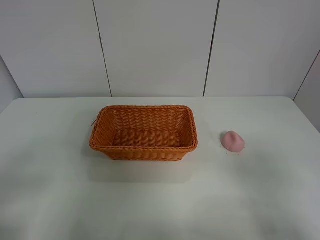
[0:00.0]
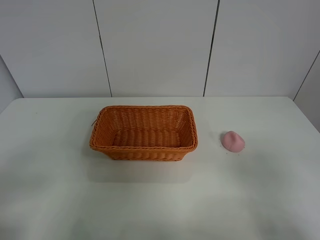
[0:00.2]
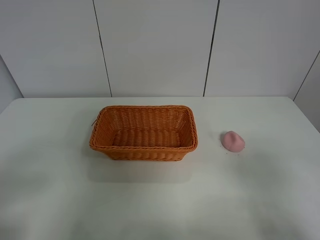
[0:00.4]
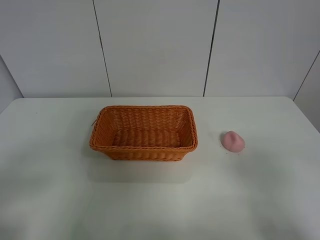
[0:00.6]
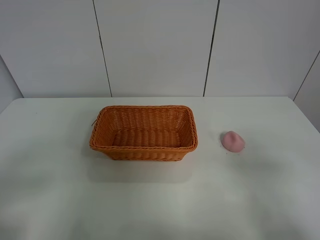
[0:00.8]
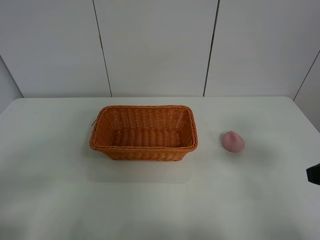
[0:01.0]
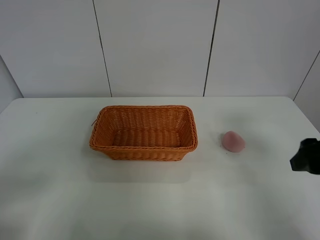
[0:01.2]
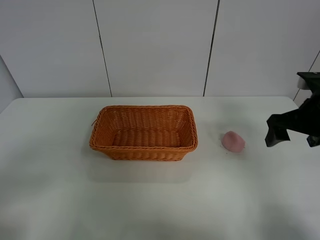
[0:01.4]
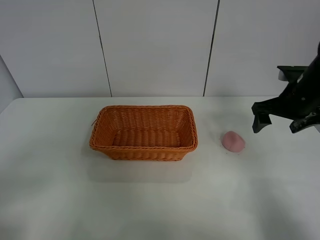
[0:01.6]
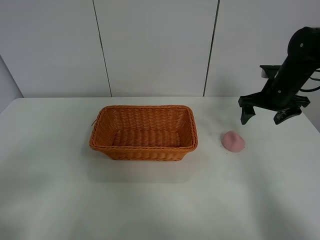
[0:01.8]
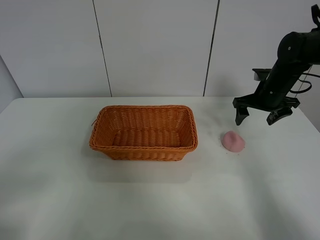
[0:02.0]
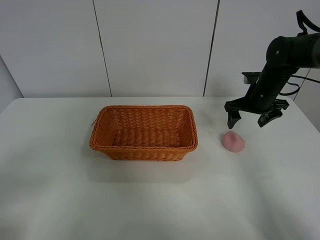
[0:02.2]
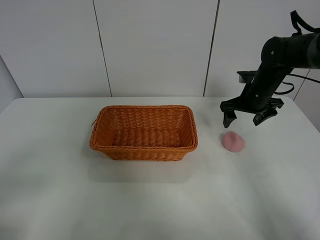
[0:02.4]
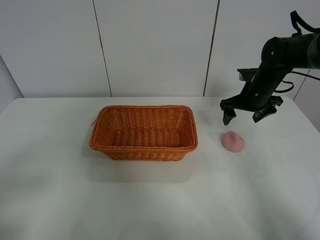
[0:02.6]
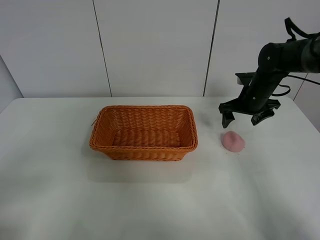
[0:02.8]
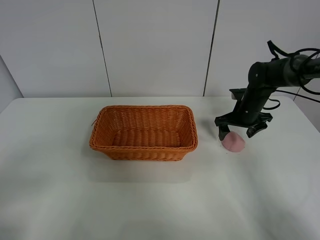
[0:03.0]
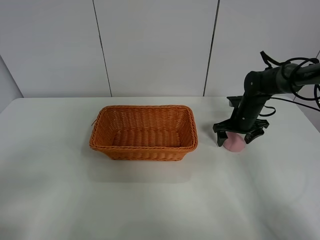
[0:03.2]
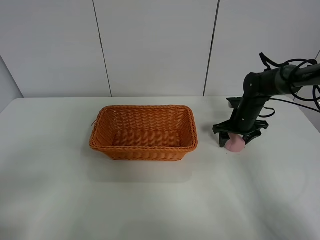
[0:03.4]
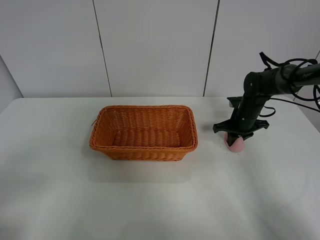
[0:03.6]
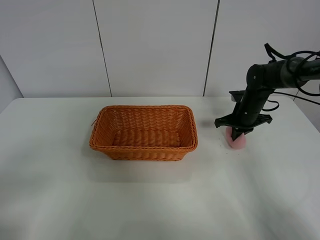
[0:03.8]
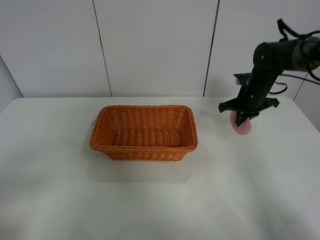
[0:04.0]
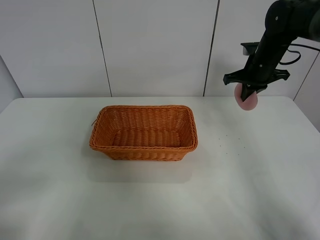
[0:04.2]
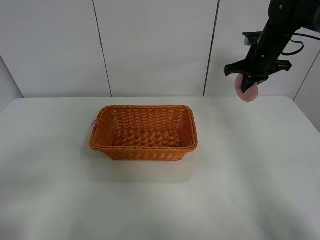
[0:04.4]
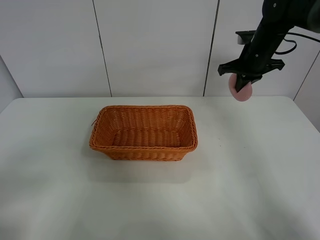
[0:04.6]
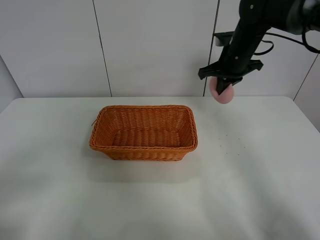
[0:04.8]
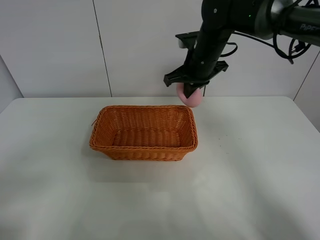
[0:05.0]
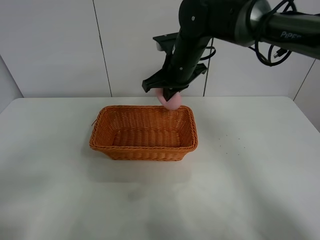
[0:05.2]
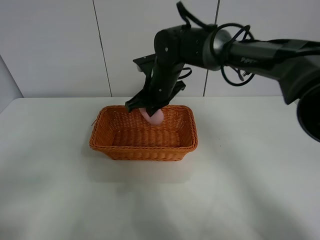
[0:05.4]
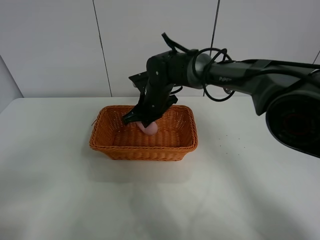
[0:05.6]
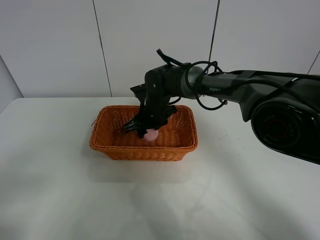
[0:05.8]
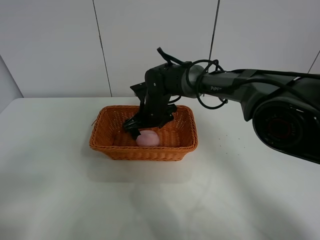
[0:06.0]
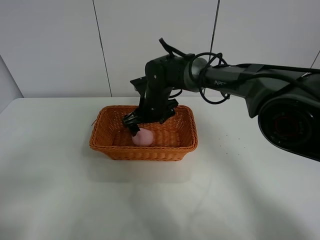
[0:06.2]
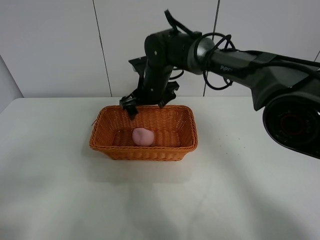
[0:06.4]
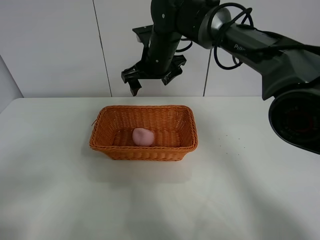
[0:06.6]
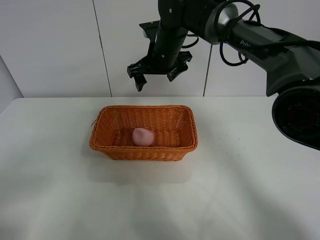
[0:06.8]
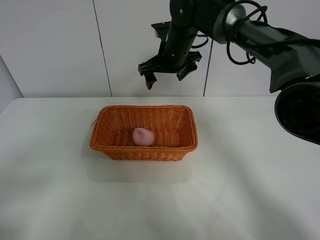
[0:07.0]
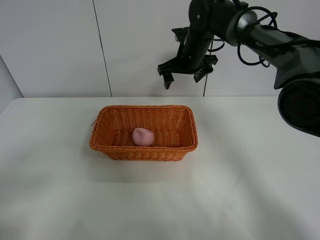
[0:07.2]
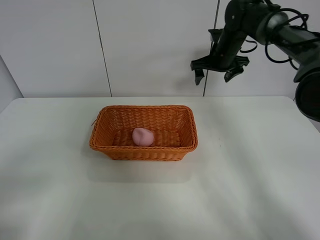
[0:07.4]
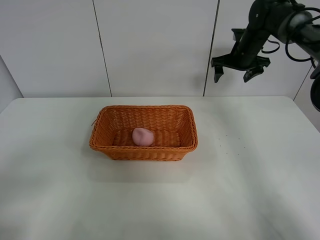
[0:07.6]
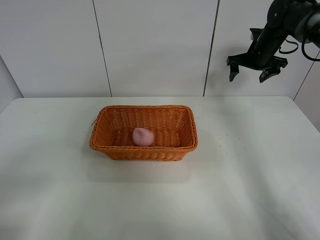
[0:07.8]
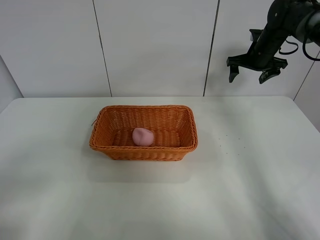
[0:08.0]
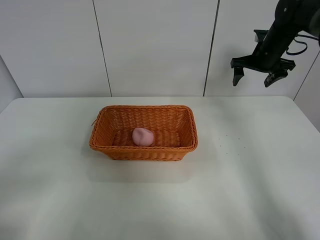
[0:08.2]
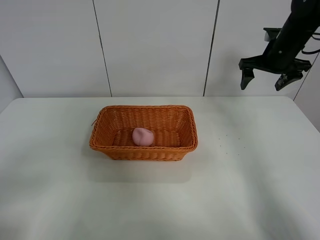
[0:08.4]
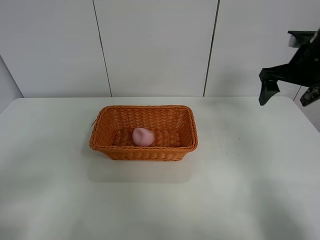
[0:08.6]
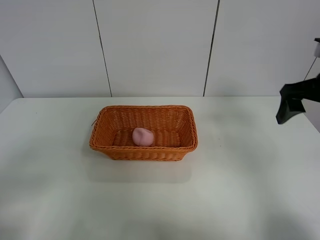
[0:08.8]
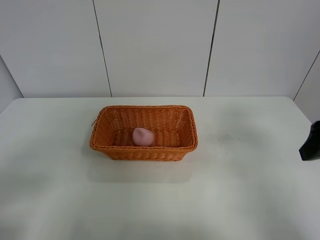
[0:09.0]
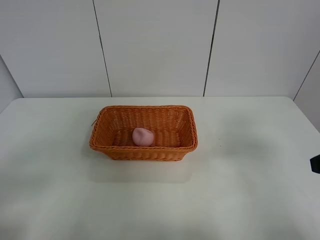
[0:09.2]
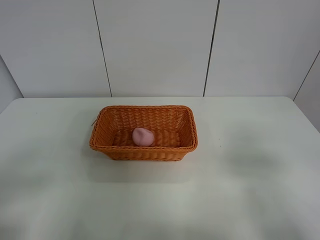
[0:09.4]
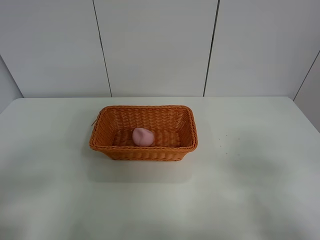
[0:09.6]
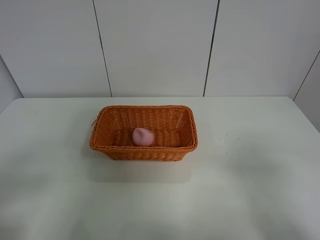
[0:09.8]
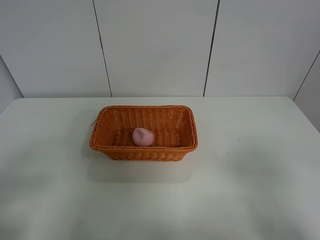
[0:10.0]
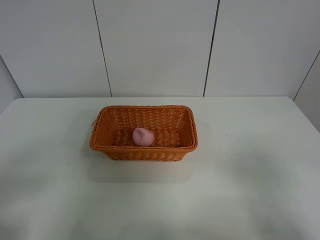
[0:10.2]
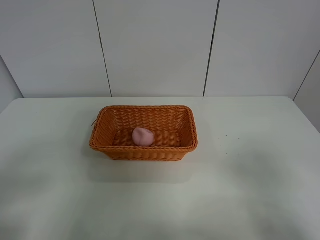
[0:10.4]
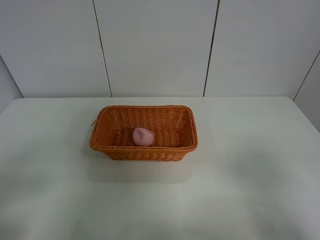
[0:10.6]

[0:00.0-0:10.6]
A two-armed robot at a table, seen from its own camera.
Step, 0:00.0 to 0:03.6: Grasp the peach with right gripper.
Step, 0:03.8 to 0:06.6: Place the peach in the basket with right gripper.
0:00.0 to 0:01.6: The right gripper goes about 35 cm forward.
0:01.6 to 0:03.0: The right gripper goes about 15 cm downward and forward.
0:03.0 to 0:04.6: The right gripper heads upward, covering roughly 15 cm, and closes its fingers.
0:04.6 to 0:06.0: The right gripper travels to the left and downward by about 25 cm, and opens up.
0:06.0 to 0:07.6: The right gripper travels to the right, forward and upward by some 30 cm.
0:07.6 to 0:09.0: The right gripper heads backward, covering approximately 35 cm.
0:09.0 to 0:10.6: The right gripper goes some 15 cm backward.

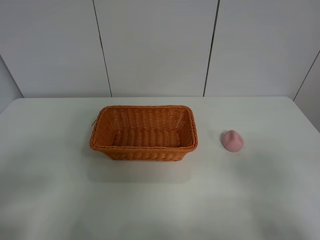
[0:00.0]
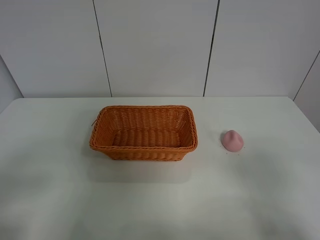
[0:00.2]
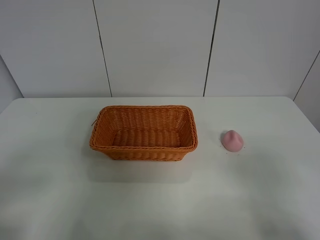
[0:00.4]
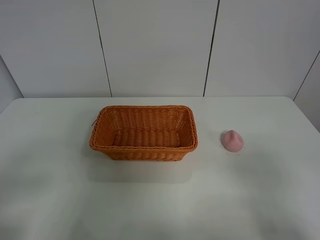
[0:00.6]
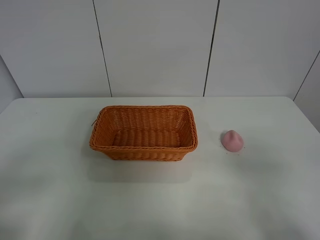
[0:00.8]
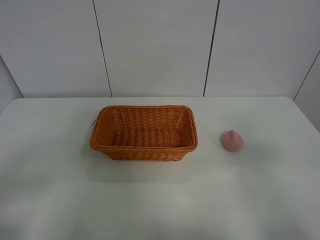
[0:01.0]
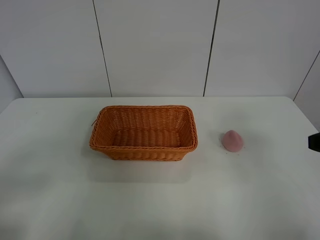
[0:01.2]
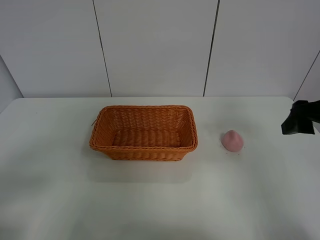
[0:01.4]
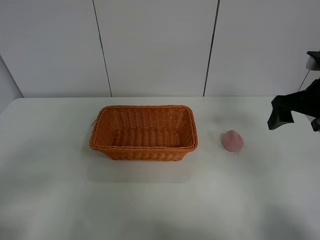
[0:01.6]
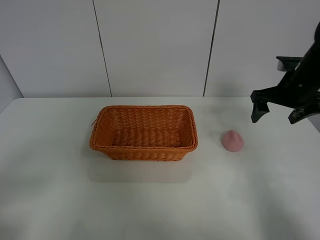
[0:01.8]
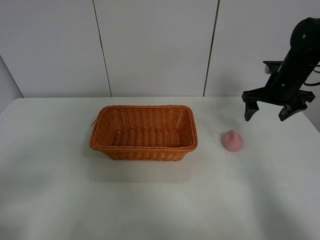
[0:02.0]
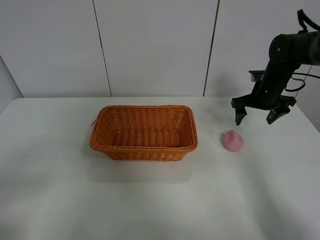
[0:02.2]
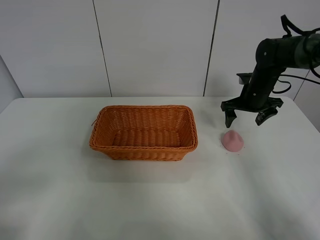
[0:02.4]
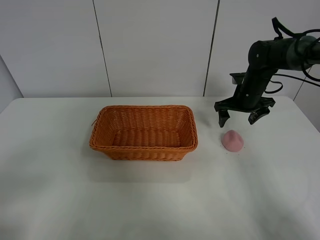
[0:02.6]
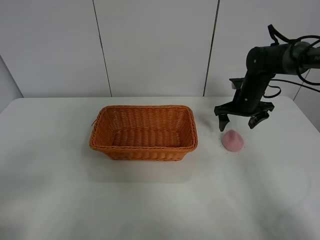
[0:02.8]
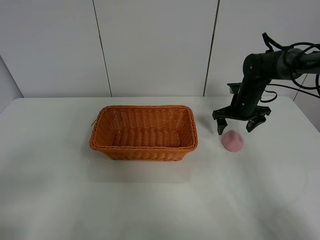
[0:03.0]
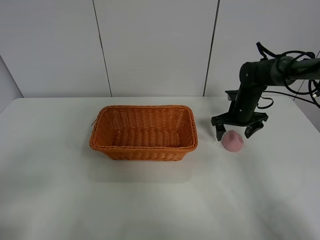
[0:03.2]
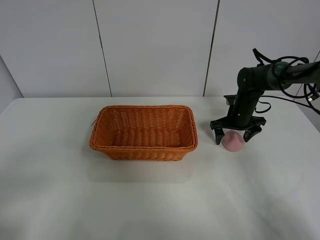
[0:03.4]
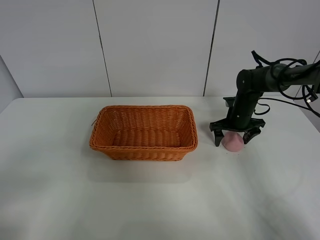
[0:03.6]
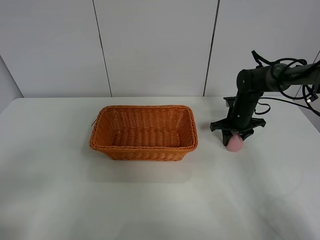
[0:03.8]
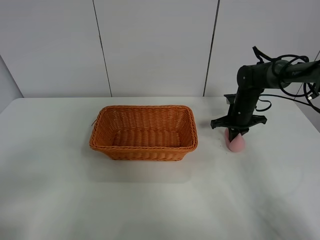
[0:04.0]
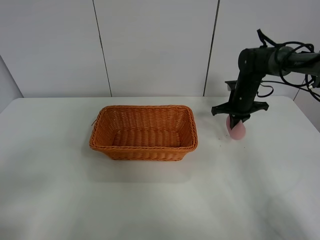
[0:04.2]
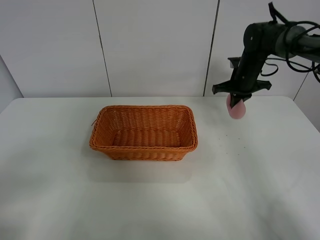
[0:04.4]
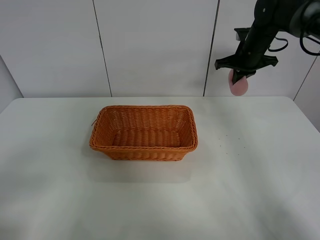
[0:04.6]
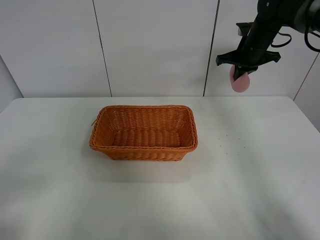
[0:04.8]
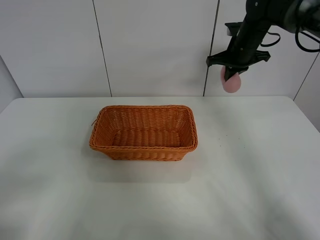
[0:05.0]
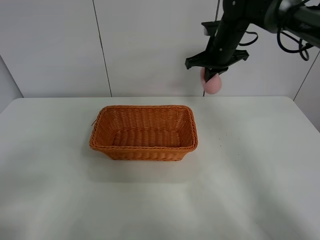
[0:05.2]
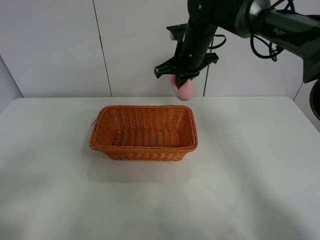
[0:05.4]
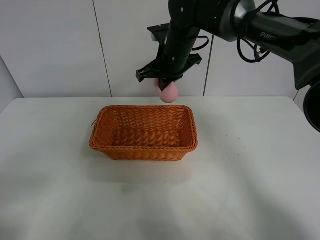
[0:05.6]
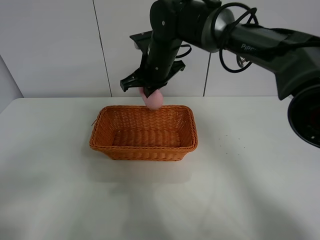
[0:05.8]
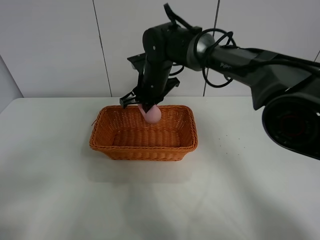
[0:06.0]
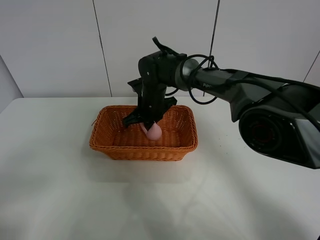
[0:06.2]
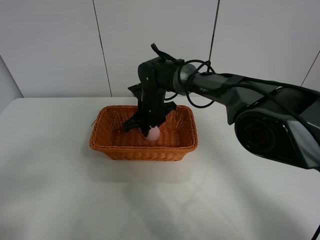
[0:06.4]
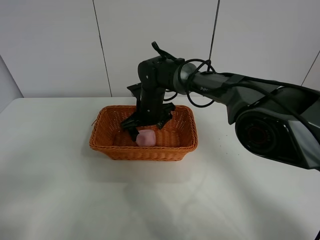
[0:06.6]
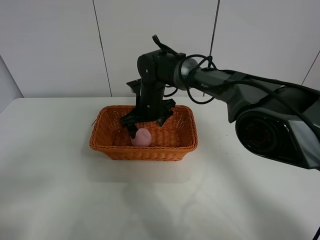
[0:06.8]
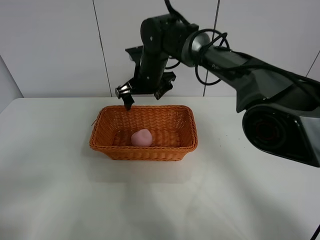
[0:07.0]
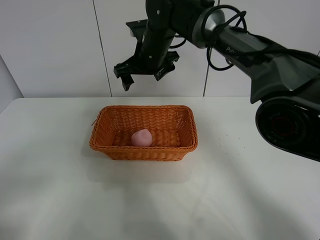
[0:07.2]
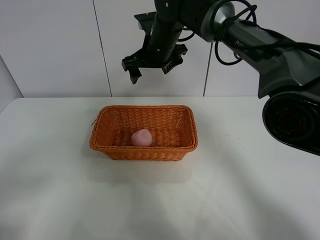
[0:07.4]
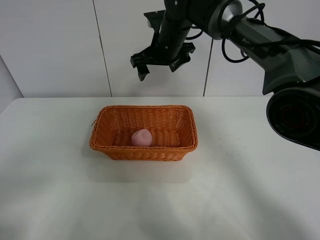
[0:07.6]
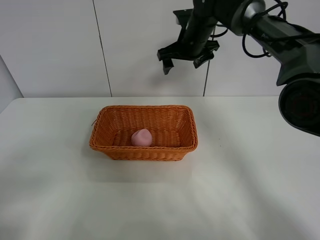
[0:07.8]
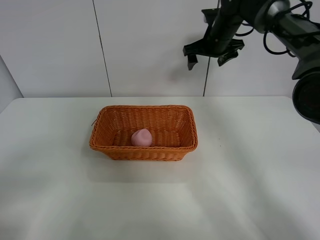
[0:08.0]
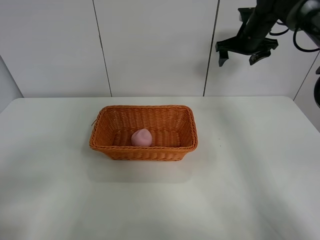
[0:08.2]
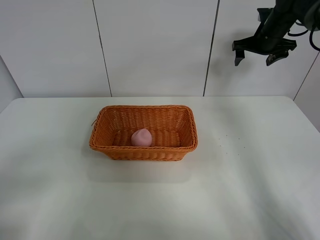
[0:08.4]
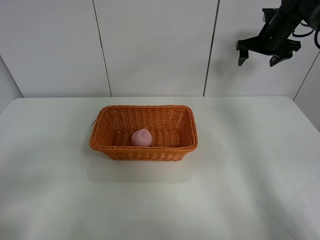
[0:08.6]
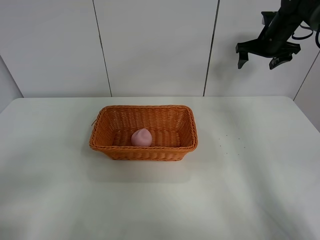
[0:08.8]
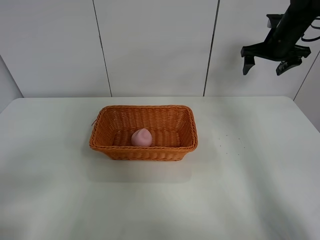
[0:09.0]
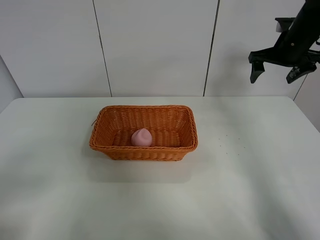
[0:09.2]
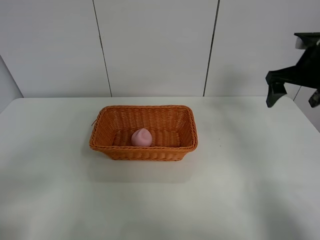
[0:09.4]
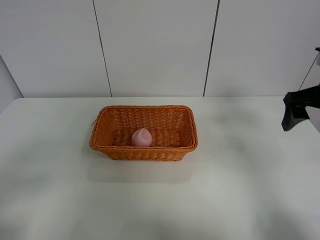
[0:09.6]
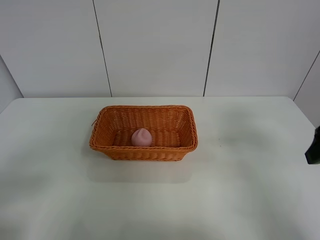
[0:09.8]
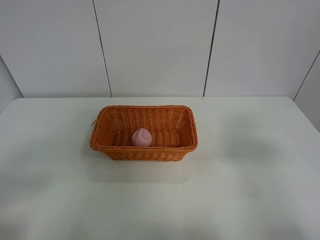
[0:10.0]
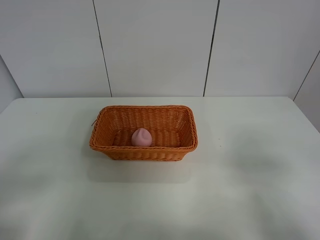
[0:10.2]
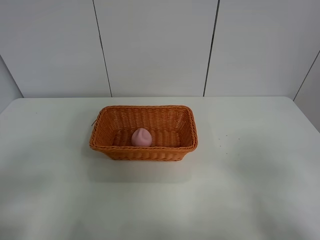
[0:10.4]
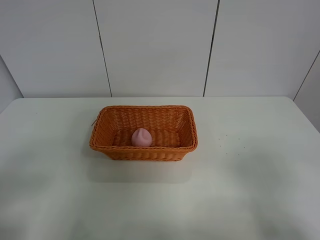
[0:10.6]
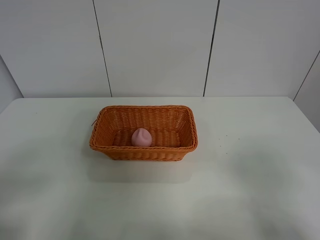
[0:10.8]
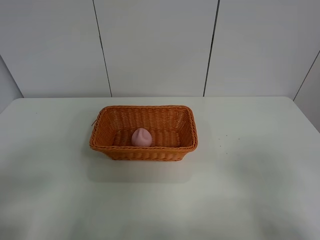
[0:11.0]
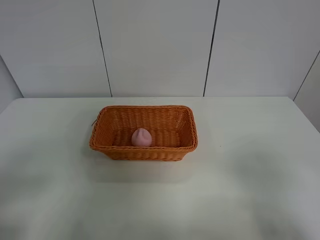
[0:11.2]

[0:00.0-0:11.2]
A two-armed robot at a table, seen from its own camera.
Step, 0:00.0 to 0:03.8: Grasp the peach with right gripper.
Step, 0:04.0 to 0:07.2: Place the peach in the basket with right gripper.
0:01.6 to 0:03.2: The right gripper is displaced forward and downward by approximately 25 cm.
0:03.2 to 0:04.8: The right gripper is displaced upward by approximately 15 cm, and closes up.
0:04.8 to 0:06.4: The right gripper is displaced to the left and downward by some 30 cm.
0:06.4 to 0:08.0: The right gripper shifts roughly 20 cm upward, to the right and forward, and opens its fingers.
0:08.0 to 0:09.6: The right gripper travels backward and to the right by about 25 cm.
0:09.6 to 0:11.2: The right gripper is displaced backward by some 30 cm.
